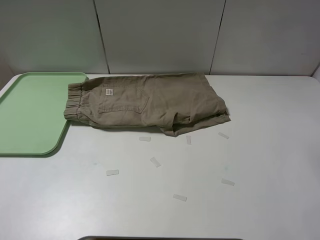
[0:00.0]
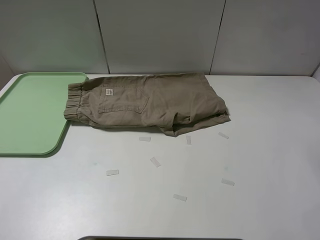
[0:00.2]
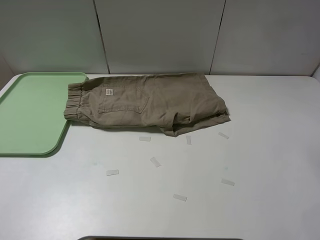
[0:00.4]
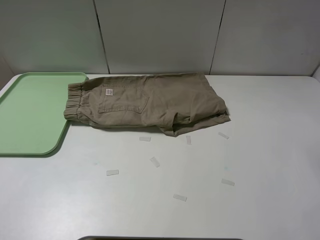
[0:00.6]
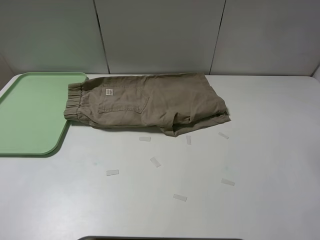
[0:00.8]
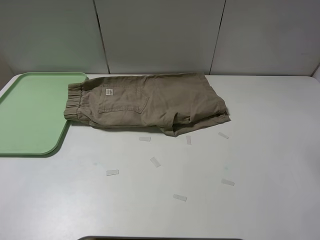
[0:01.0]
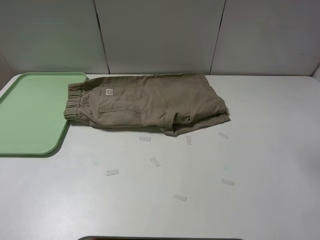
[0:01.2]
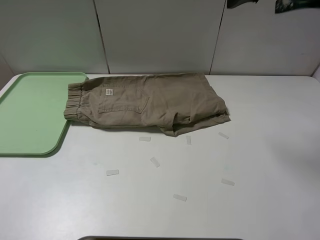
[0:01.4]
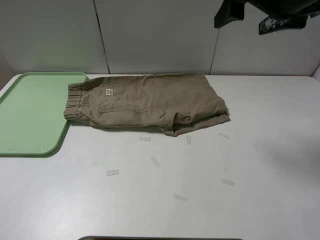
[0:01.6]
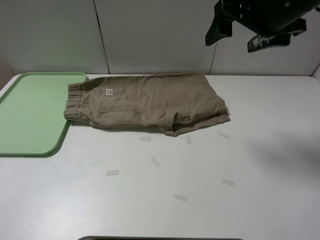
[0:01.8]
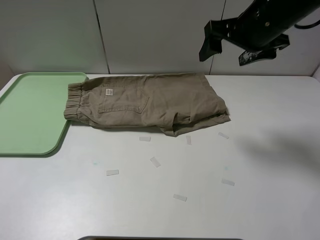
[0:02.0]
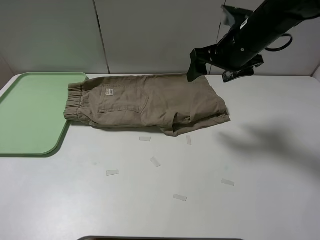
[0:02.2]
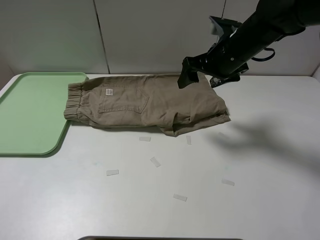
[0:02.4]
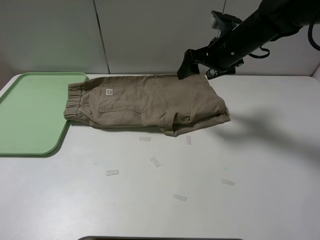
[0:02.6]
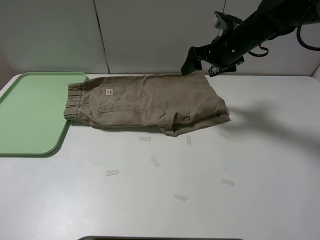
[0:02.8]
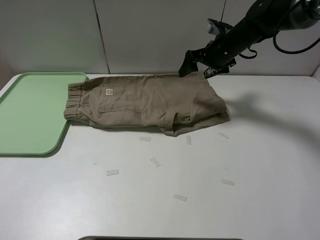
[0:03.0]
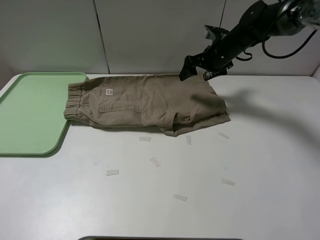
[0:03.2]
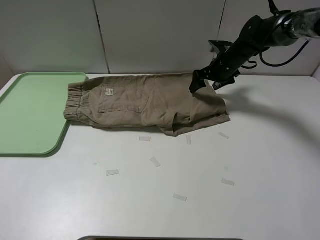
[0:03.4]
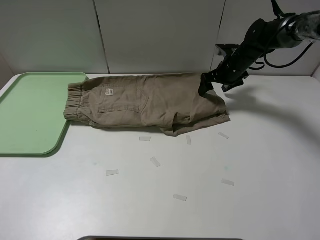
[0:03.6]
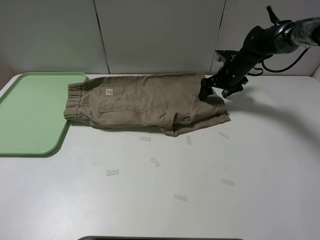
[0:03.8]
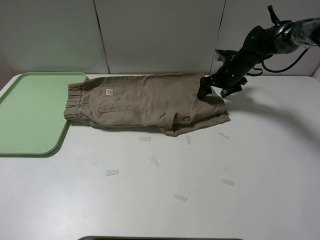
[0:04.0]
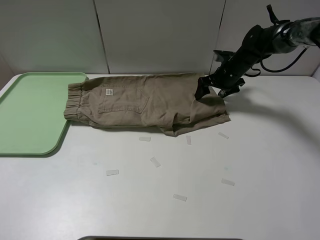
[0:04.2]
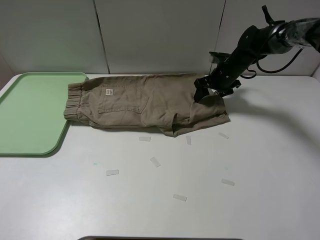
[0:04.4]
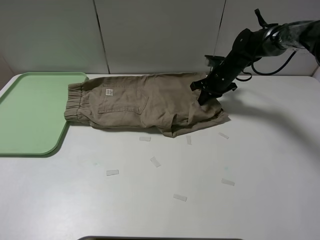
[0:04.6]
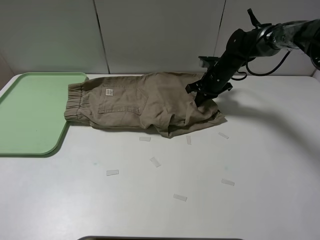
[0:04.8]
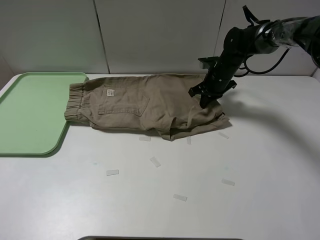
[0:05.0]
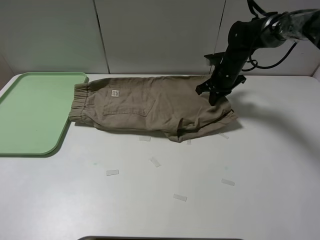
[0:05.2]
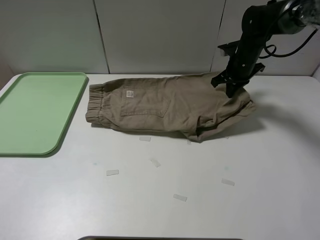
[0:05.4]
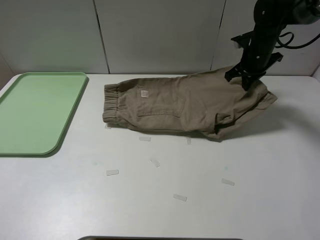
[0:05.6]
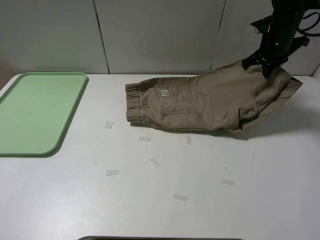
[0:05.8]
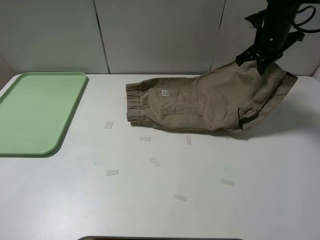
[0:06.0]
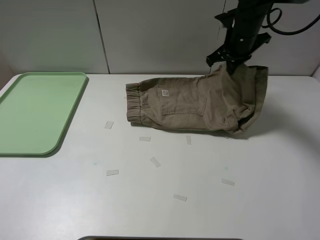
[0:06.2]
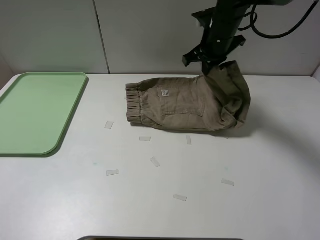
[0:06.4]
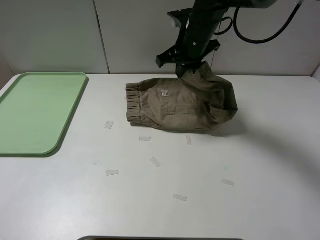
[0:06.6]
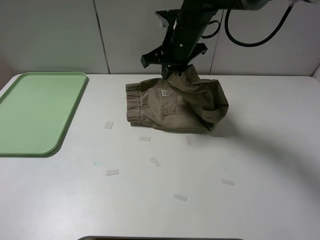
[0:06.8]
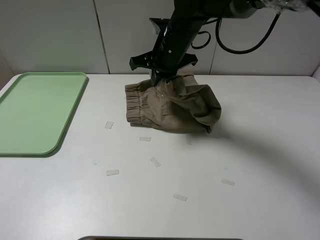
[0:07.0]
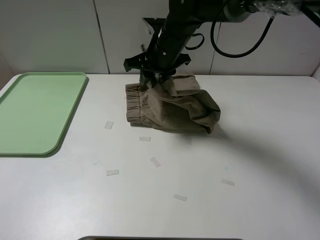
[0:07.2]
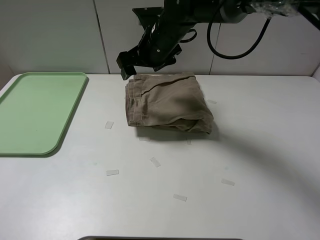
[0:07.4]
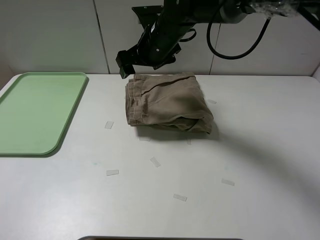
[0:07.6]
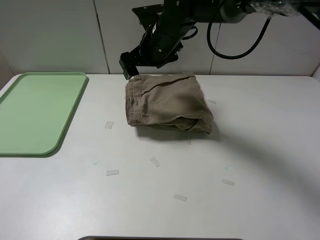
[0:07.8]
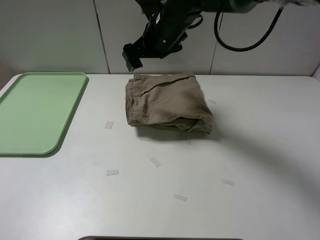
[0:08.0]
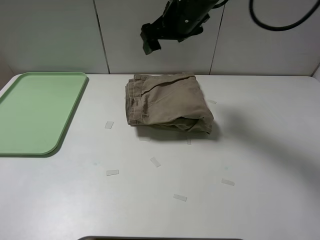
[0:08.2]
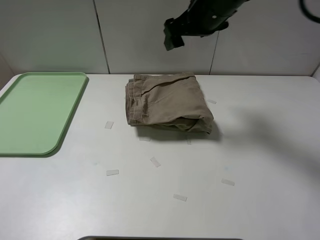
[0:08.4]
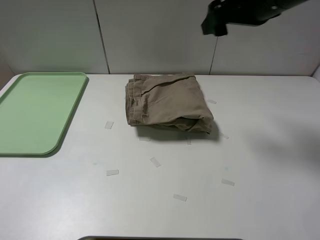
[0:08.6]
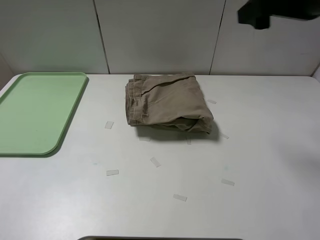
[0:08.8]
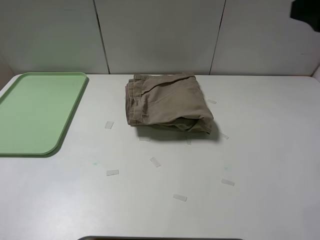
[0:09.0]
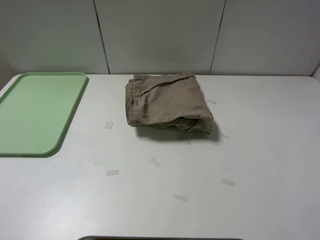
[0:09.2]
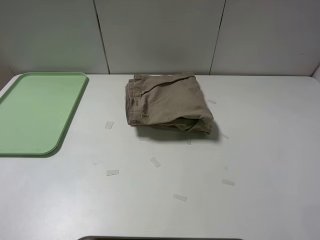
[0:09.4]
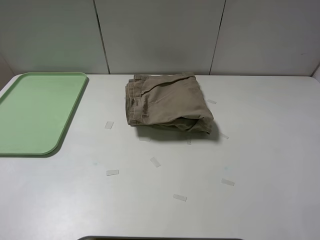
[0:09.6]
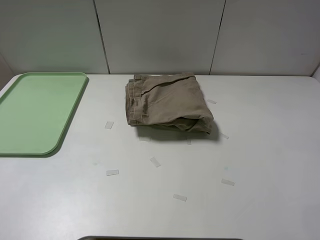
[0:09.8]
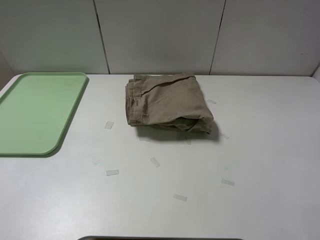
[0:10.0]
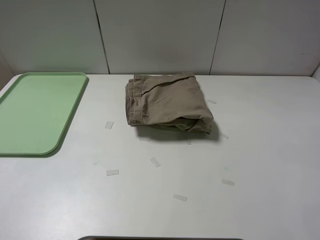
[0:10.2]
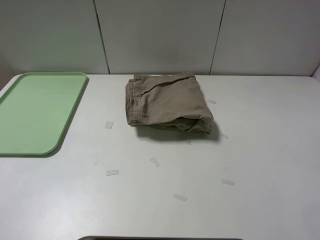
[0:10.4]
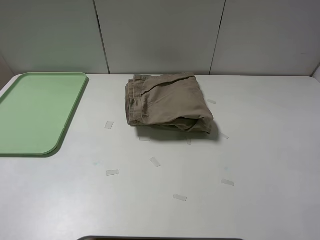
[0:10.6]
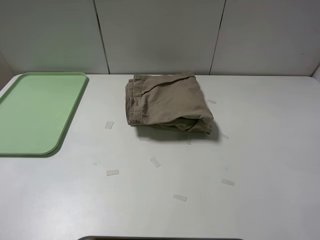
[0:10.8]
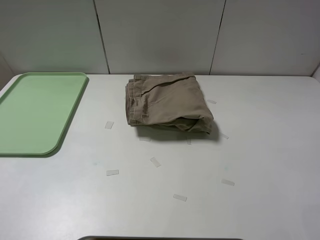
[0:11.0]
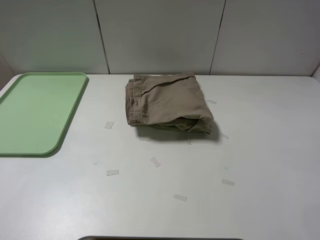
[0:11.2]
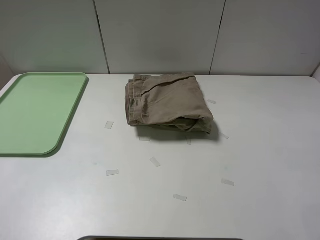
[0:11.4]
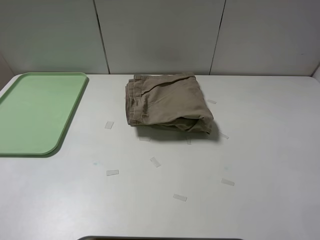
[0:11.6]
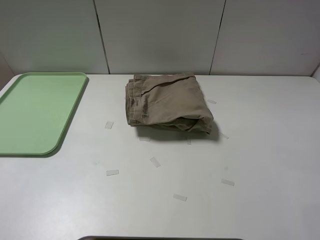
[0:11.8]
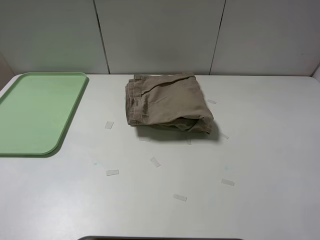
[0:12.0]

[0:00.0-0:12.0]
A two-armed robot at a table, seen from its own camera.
Task of the whole recording: fold the khaki jeans in half with two grippers, then fold them in half again, and use the left claw to place the folded fold khaki jeans on the tray.
Step, 0:00.0 to 0:04.6: Grasp the khaki trousers with the right gripper.
Step, 0:04.8 to 0:07.4: Fold the khaki trousers from right to left with the right gripper.
0:00.0 to 0:01.6: The right gripper shifts roughly 10 cm downward.
0:01.6 to 0:03.0: The right gripper travels forward and downward by roughly 25 cm.
0:03.0 to 0:04.4: The right gripper goes about 10 cm downward, and closes up.
0:04.4 to 0:06.0: The right gripper heads upward, covering approximately 15 cm, and closes its fingers.
0:06.0 to 0:07.6: The right gripper travels to the left by about 25 cm, and opens up.
0:07.6 to 0:09.0: The right gripper goes approximately 35 cm to the right, backward and upward.
0:09.0 to 0:10.4: The right gripper is displaced backward and downward by roughly 20 cm.
0:10.4 to 0:12.0: Neither gripper changes place.

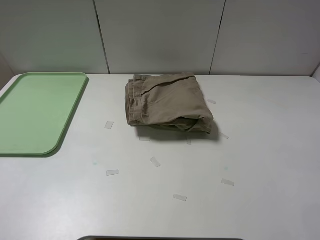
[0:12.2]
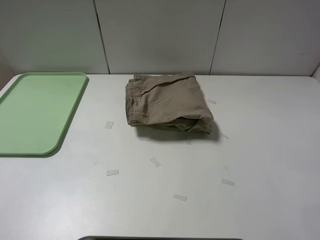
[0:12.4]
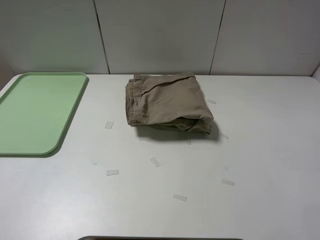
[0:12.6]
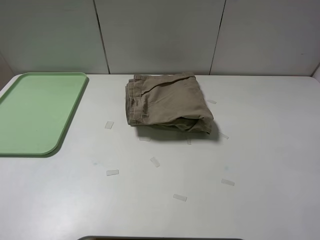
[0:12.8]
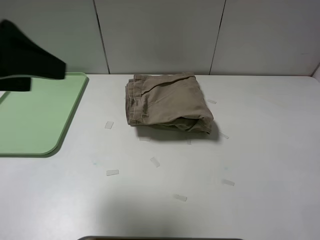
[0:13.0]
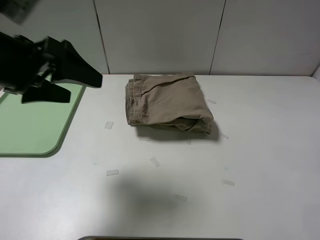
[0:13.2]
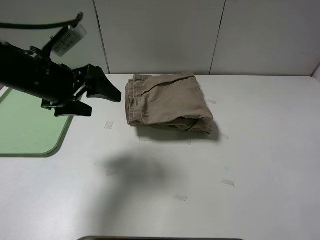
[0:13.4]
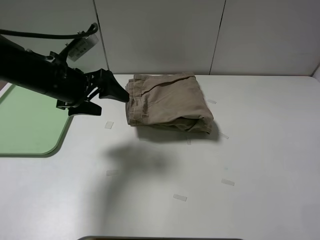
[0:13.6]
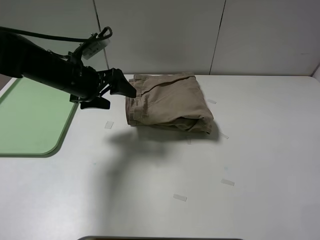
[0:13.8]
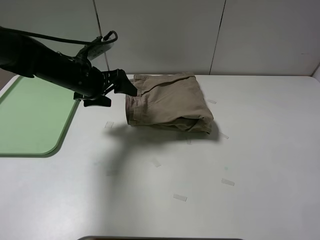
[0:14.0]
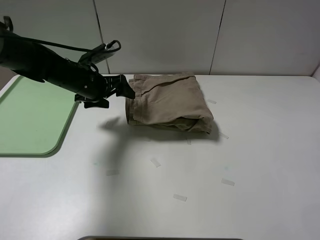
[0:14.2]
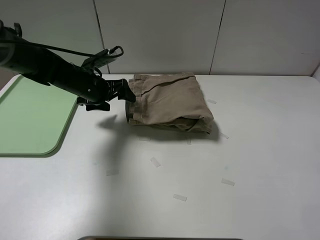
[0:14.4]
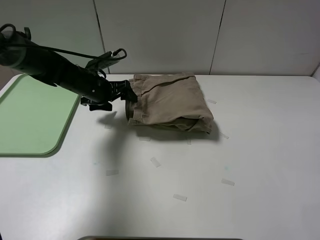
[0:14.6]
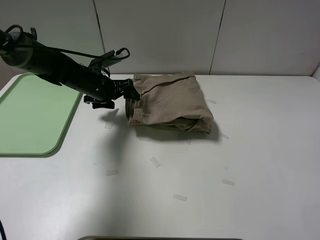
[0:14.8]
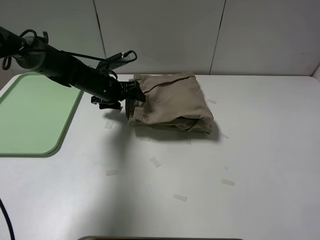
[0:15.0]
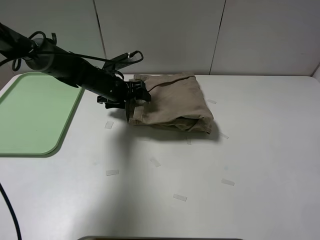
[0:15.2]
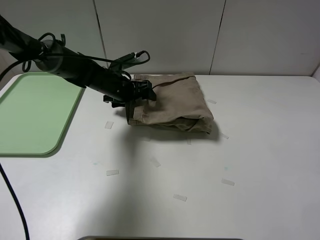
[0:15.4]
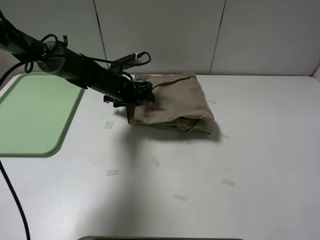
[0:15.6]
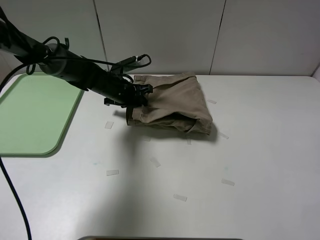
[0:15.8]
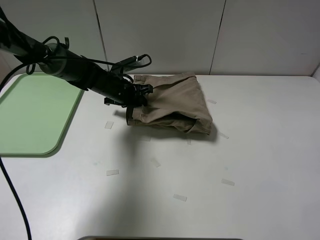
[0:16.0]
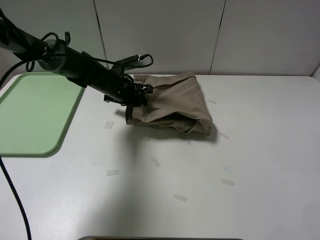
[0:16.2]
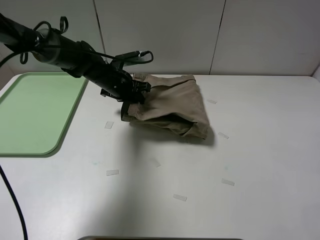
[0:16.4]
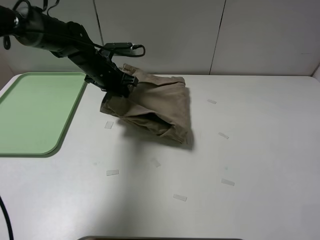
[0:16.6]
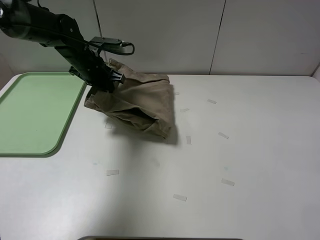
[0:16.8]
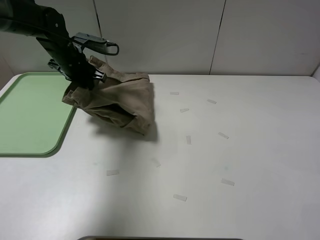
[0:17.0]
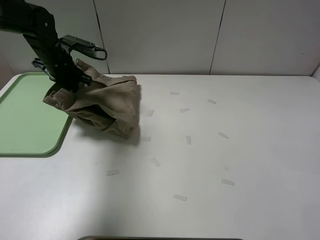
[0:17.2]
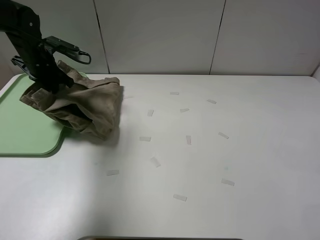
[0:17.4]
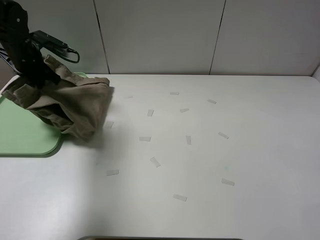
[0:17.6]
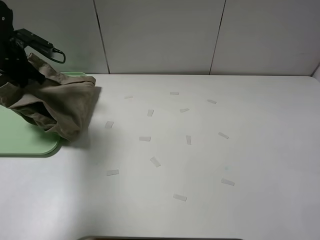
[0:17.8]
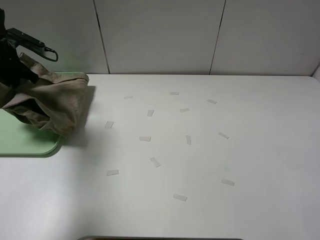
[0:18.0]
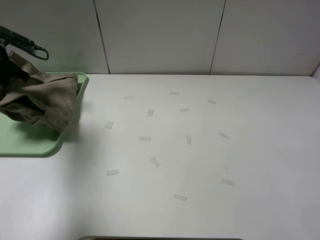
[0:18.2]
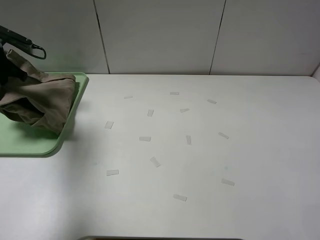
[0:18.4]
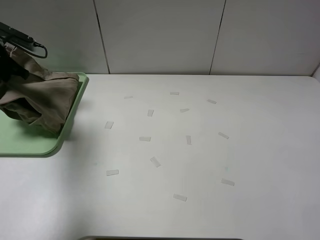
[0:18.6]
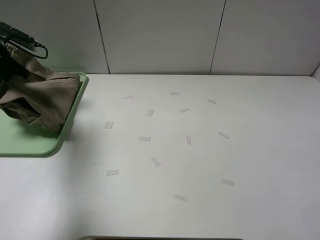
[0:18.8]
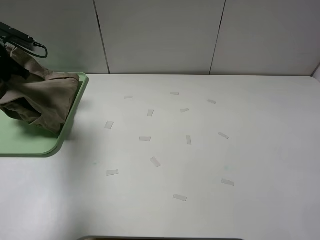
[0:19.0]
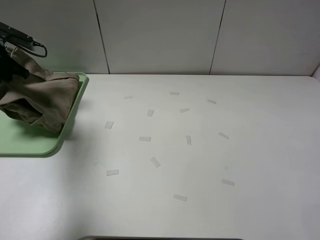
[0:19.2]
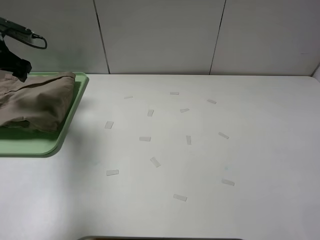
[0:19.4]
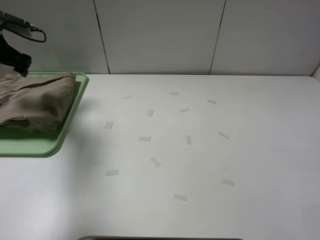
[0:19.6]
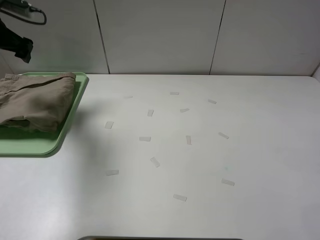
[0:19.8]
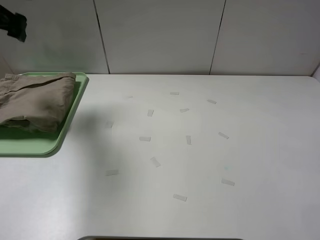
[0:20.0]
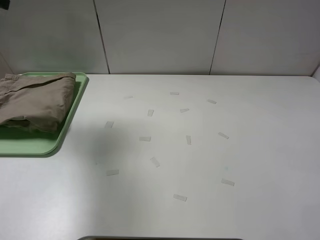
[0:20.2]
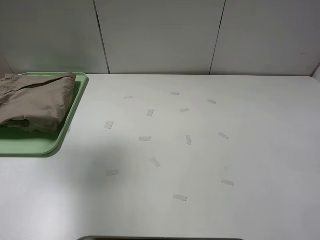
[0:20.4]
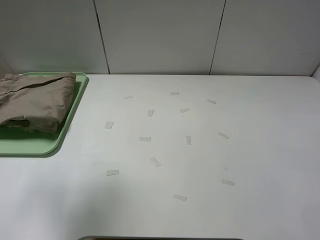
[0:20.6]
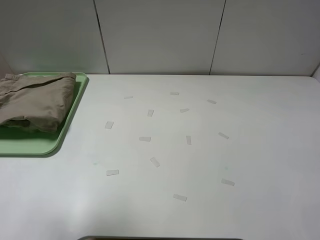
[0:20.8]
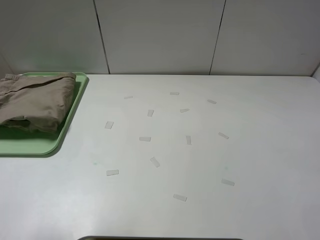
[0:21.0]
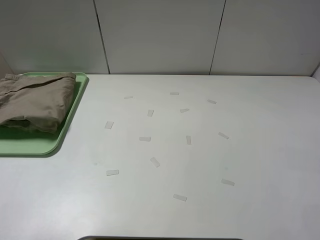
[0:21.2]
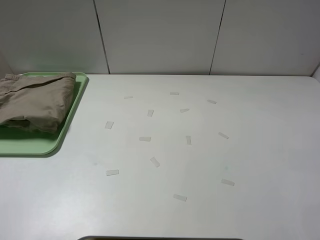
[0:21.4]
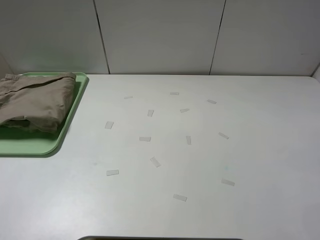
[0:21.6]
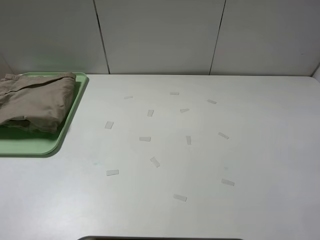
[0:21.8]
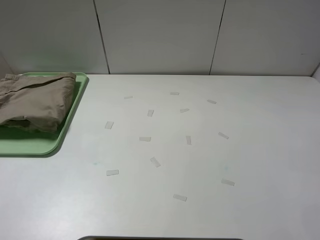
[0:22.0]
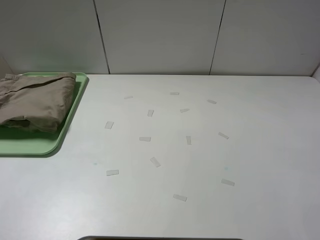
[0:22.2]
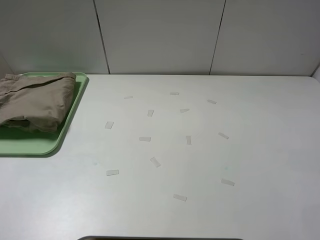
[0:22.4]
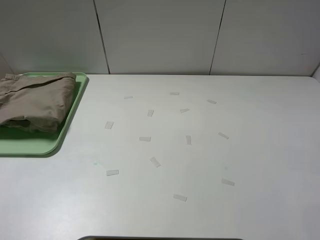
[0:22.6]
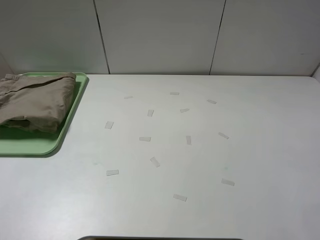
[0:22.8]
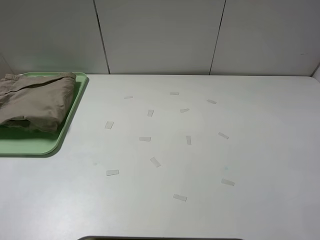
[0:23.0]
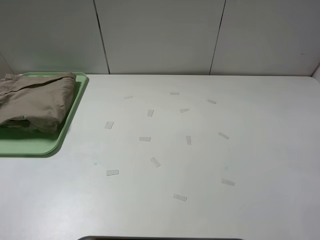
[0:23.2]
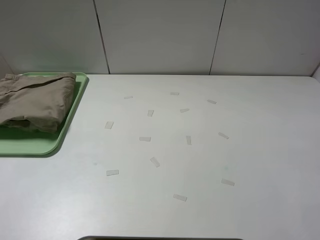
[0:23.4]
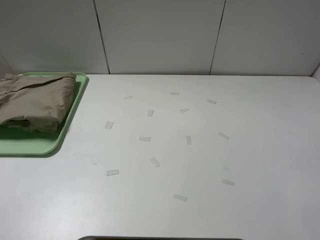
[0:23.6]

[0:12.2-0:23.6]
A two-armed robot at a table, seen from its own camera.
Task of the whole recording: fold the khaki jeans in half with two grippers, then fold them in half again, and use the left claw to place the folded fold khaki jeans on the tray.
Step, 0:12.2 to 0:16.2: Grasp the khaki trousers with the left gripper.
Step, 0:16.4 to 0:19.2: Place the folded khaki trousers on the green tray with the left gripper.
0:12.2 to 0:13.6: The left gripper moves forward, about 30 cm.
0:13.6 to 0:15.0: The left gripper heads forward and downward, covering about 15 cm.
0:15.0 to 0:16.4: The left gripper closes.
0:16.4 to 0:17.8: The left gripper moves to the left, approximately 20 cm.
0:17.8 to 0:19.4: The left gripper opens its fingers.
0:19.4 to 0:20.8: The left gripper travels backward and upward by roughly 35 cm.
0:20.8 to 0:22.2: The left gripper shifts some 15 cm backward and downward.
